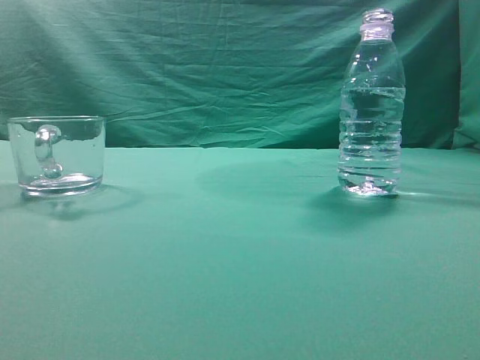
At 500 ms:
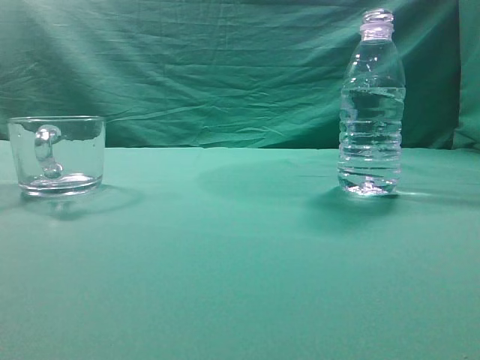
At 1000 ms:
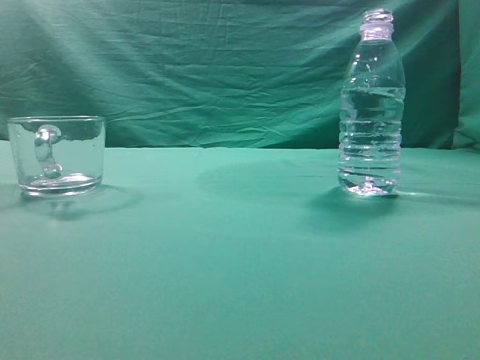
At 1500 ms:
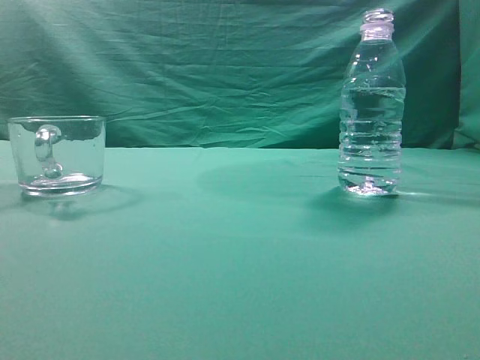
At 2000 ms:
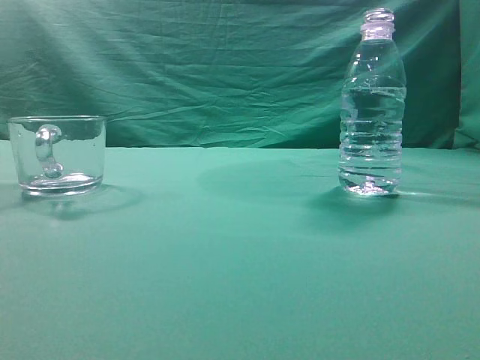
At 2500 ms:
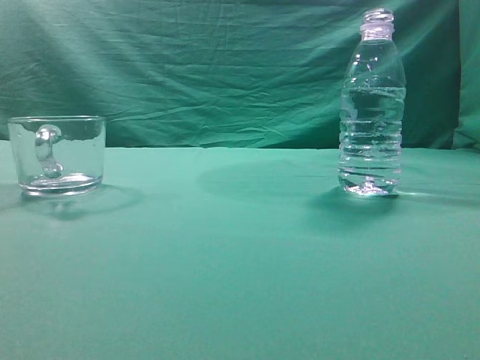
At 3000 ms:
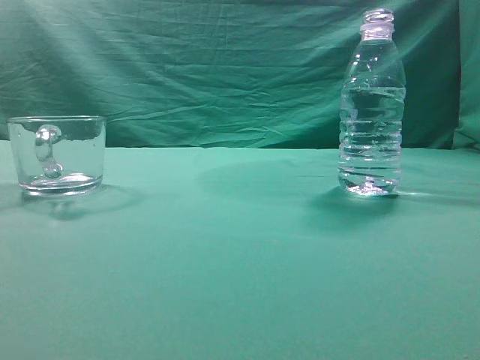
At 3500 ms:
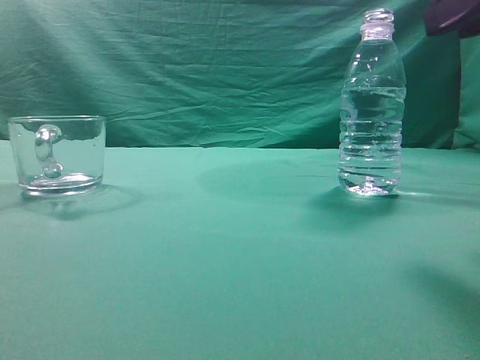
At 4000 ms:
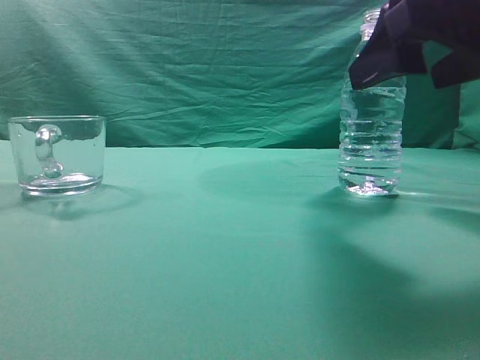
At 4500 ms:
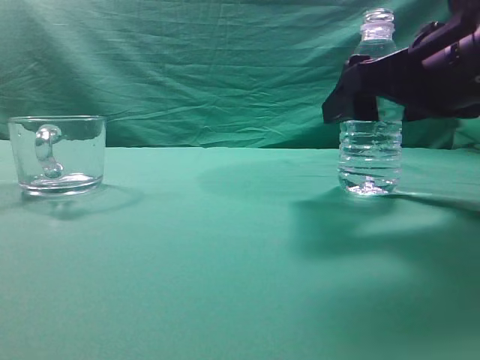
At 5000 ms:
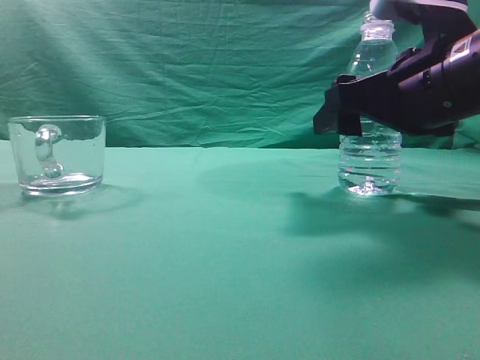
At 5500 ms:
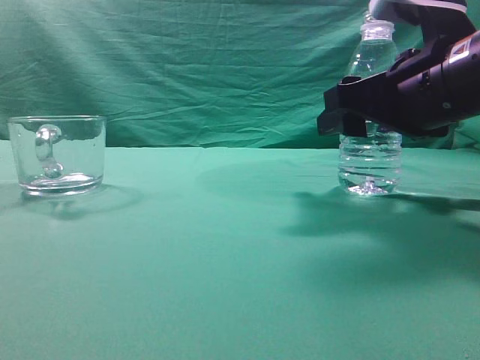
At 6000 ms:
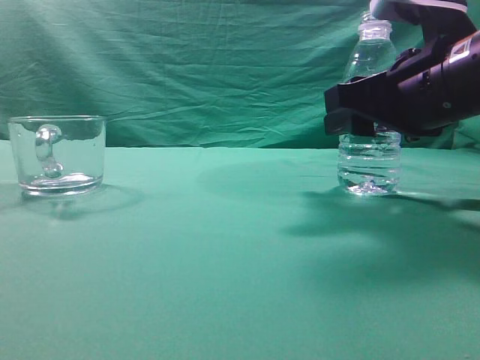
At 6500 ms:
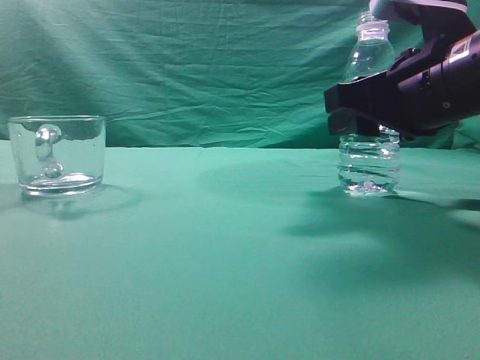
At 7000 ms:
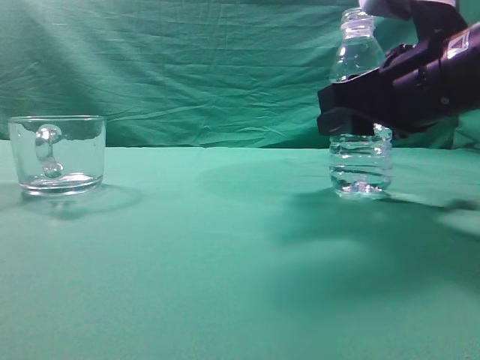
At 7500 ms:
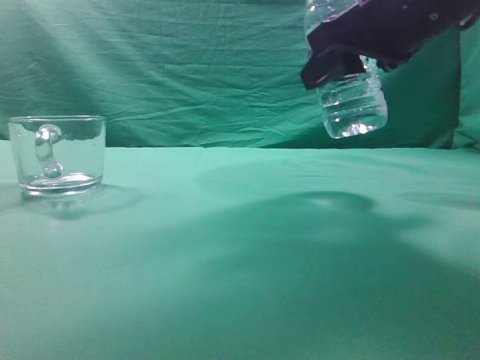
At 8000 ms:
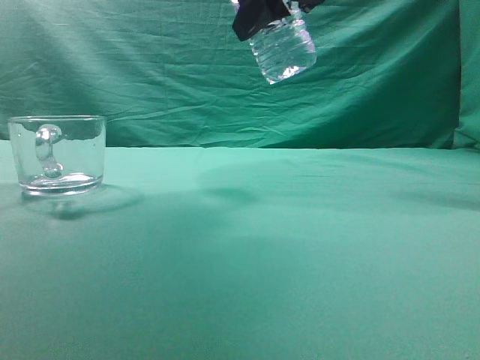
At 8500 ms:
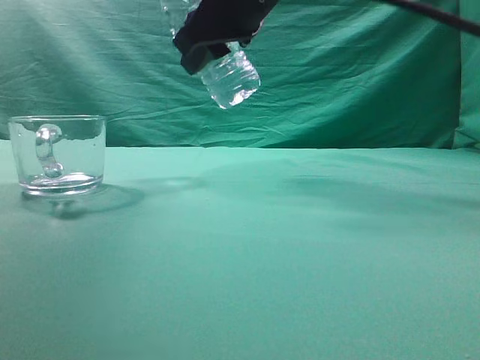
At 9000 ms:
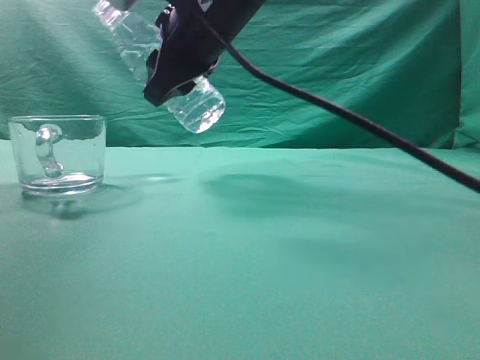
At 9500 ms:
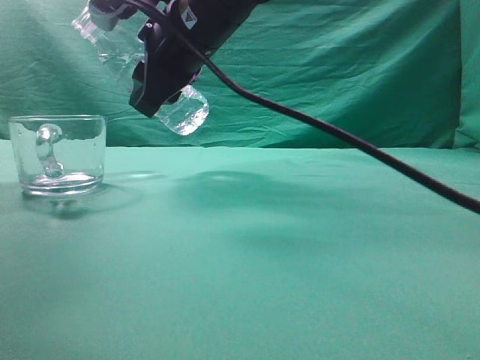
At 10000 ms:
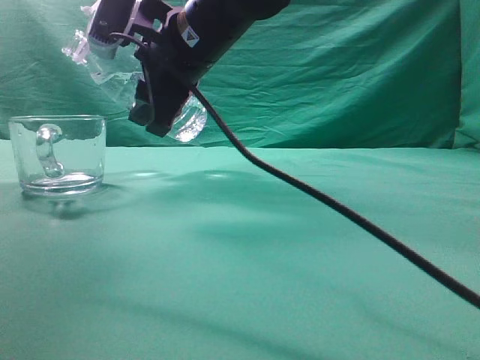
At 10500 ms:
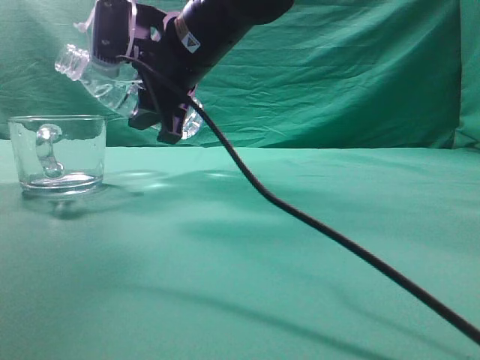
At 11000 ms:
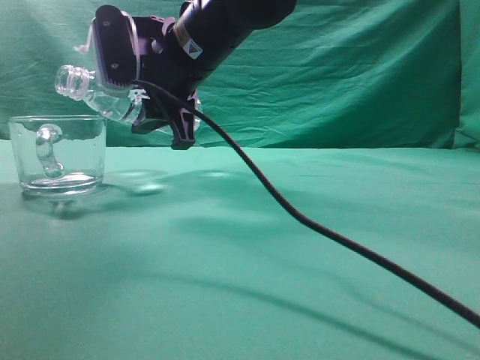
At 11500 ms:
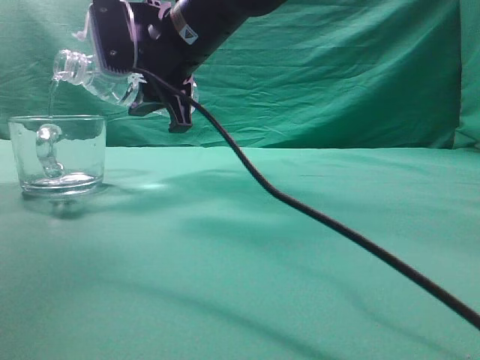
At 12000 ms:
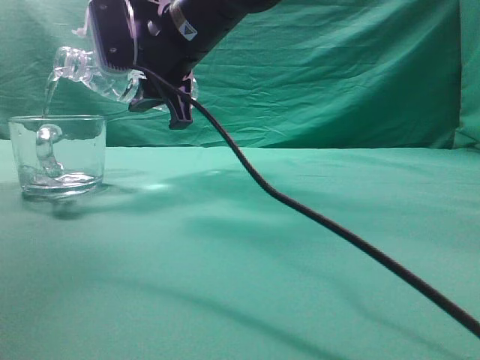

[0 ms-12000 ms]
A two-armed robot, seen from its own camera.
Task of the whole recording: pick up the water bottle and pour the water in it into the glass.
Step, 0 ms to 7000 ms: Pick up the water bottle.
2000 ms to 4000 ms: The right gripper heads forward and to the left, covering roughly 20 cm, and opens.
4000 ms to 6000 ms: The right gripper shifts about 10 cm forward and downward, and closes.
6000 ms to 8000 ms: The right gripper is displaced upward and to the left by some 15 cm.
8000 ms to 10000 ms: The right gripper moves to the left, downward and forward, roughly 15 cm.

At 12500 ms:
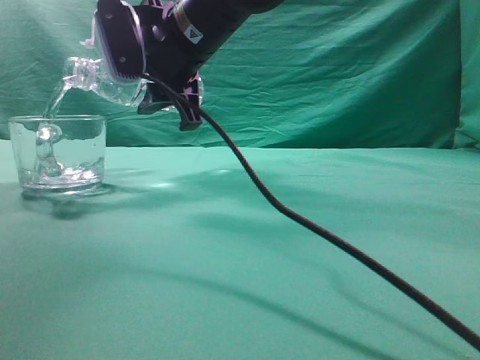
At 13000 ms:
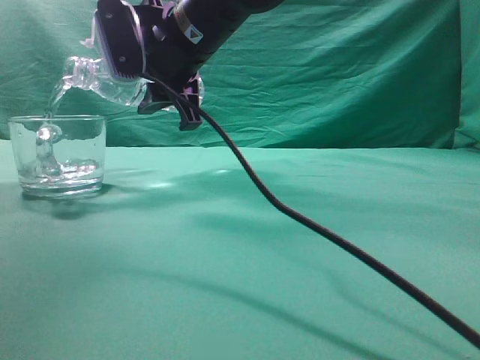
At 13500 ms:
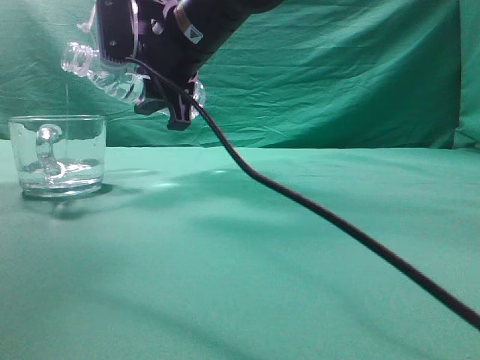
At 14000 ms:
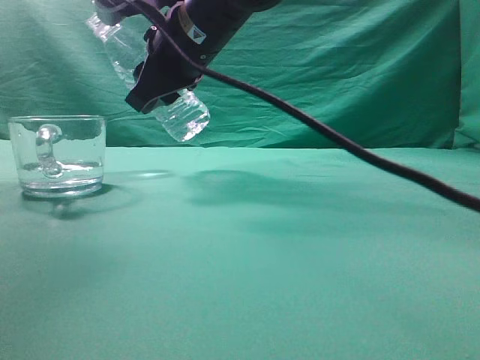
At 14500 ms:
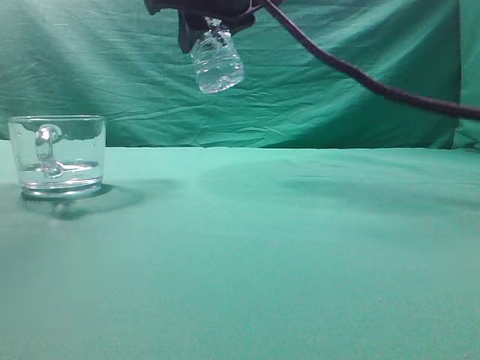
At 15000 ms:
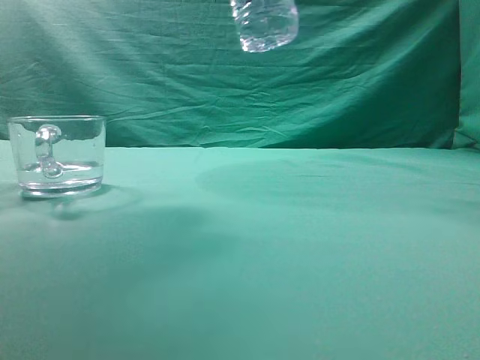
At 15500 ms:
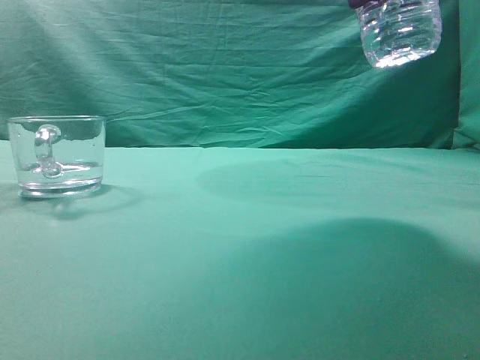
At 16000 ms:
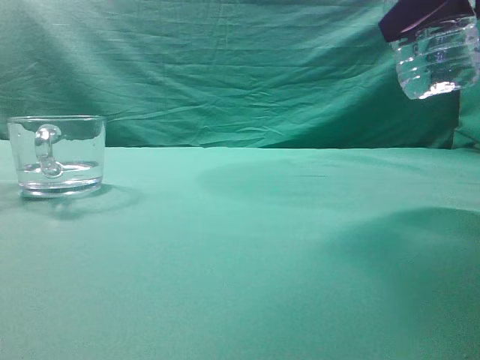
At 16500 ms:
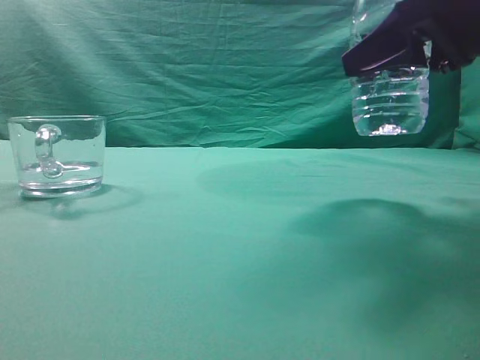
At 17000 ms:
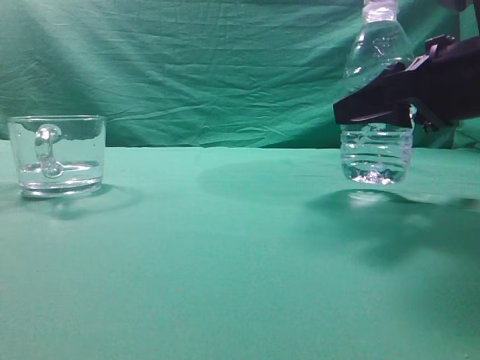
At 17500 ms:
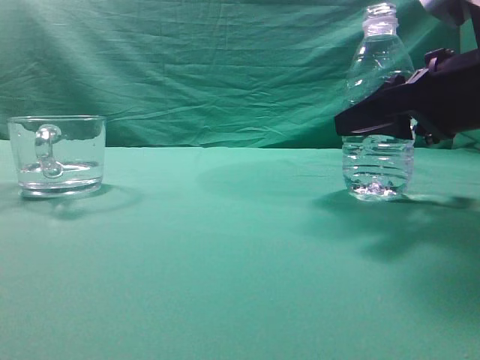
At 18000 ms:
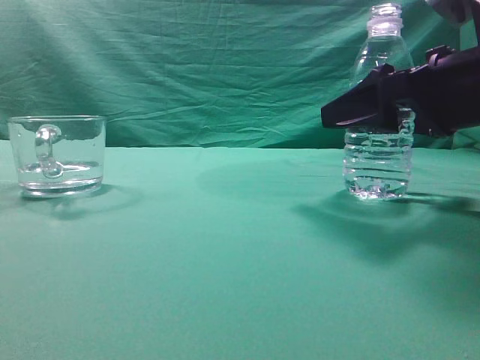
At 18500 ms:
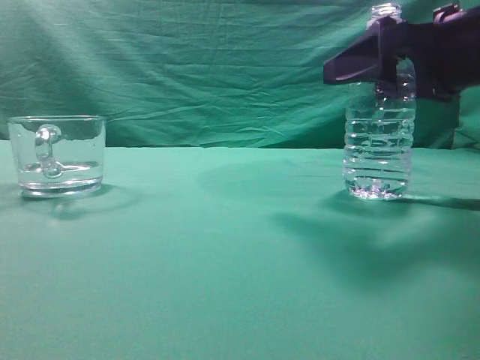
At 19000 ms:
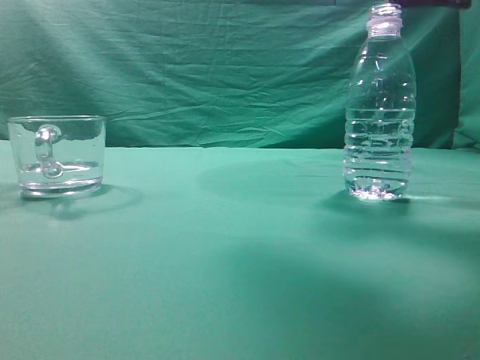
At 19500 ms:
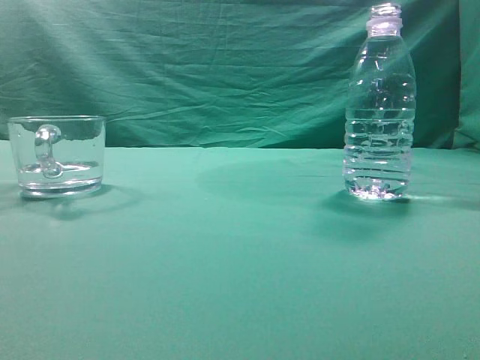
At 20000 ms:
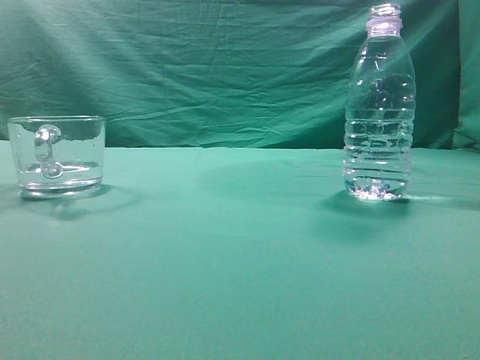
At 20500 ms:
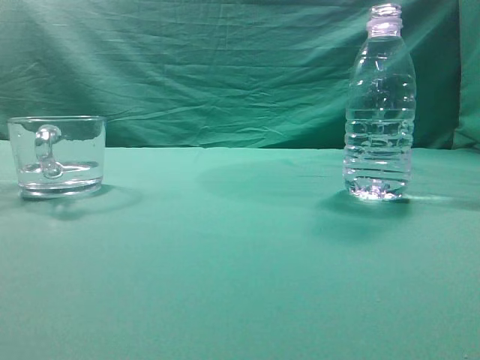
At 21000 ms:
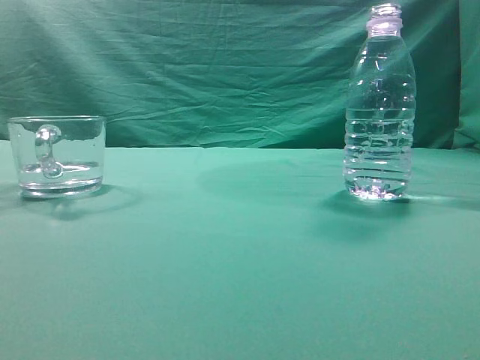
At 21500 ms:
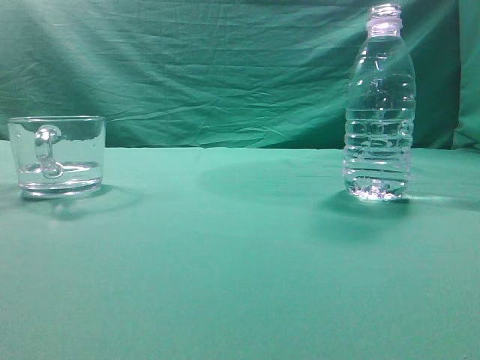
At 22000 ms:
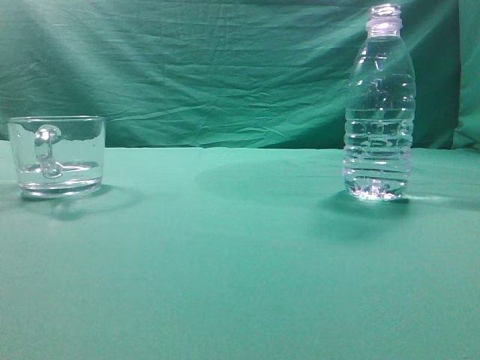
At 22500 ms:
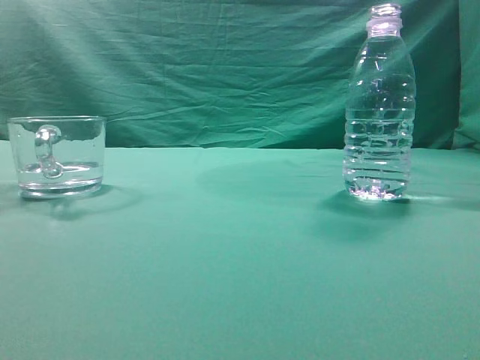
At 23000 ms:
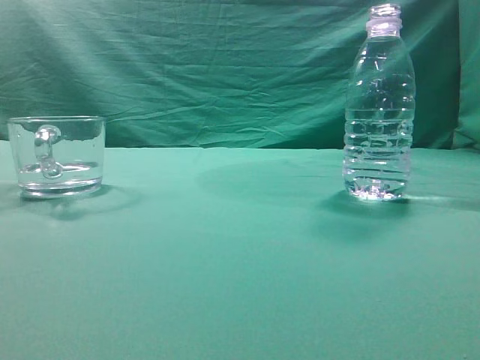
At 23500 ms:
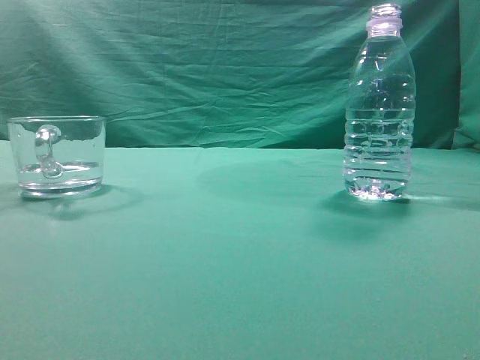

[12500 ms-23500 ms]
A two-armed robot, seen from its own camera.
Task of the whole recording: pick up the water bottle and pour the water in it into the glass.
Step, 14000 ms to 18500 ms: Place the water bottle.
12500 ms to 14500 ms: The right gripper heads upward and to the right, covering roughly 10 cm.
14500 ms to 16000 ms: The right gripper heads to the right and backward, covering approximately 25 cm.
16000 ms to 18000 ms: The right gripper shifts some 10 cm downward, and opens.
18000 ms to 20000 ms: The right gripper goes about 30 cm upward and backward, and closes.
